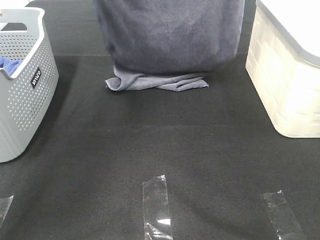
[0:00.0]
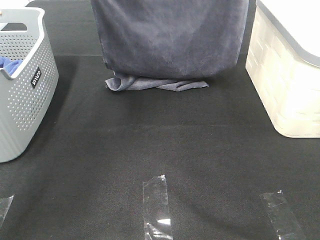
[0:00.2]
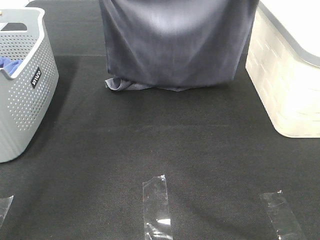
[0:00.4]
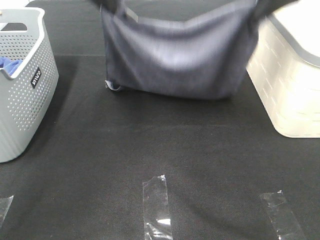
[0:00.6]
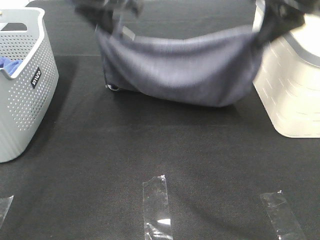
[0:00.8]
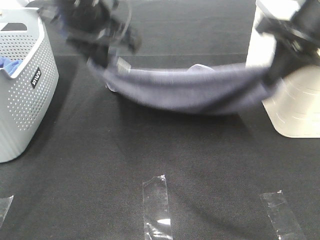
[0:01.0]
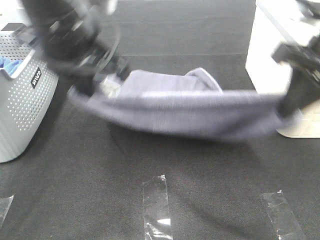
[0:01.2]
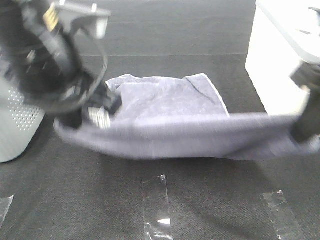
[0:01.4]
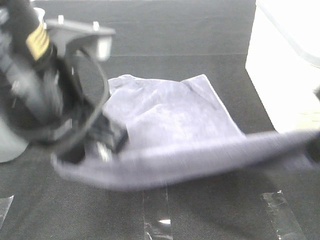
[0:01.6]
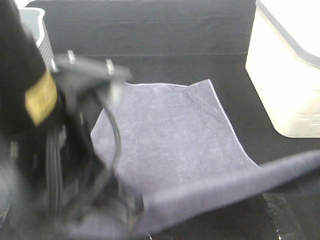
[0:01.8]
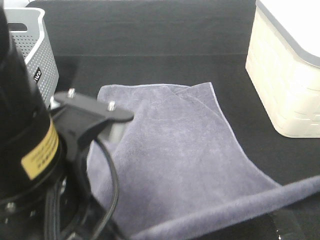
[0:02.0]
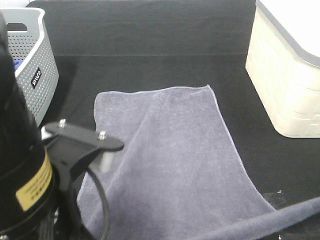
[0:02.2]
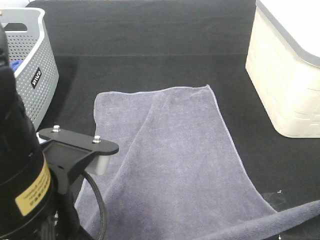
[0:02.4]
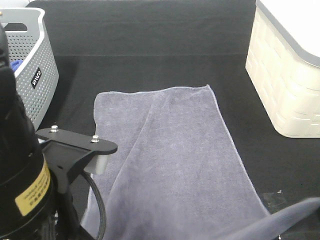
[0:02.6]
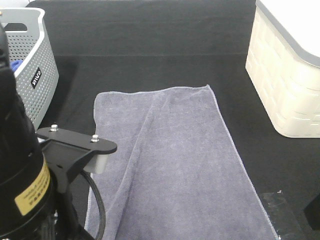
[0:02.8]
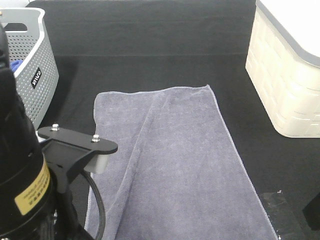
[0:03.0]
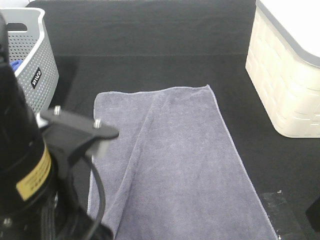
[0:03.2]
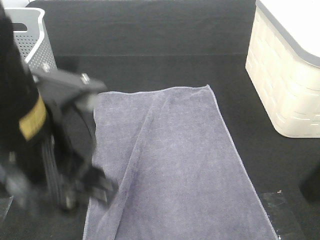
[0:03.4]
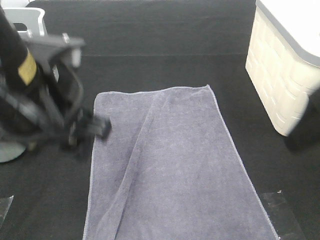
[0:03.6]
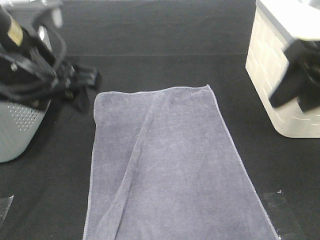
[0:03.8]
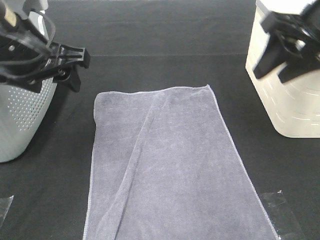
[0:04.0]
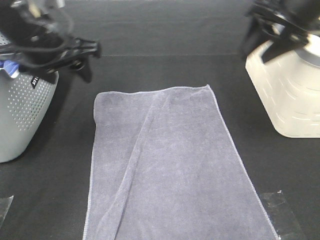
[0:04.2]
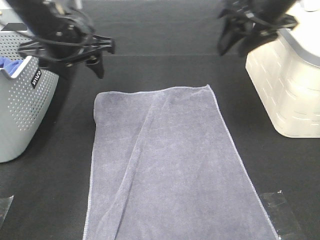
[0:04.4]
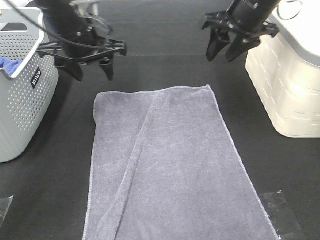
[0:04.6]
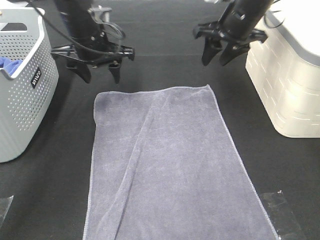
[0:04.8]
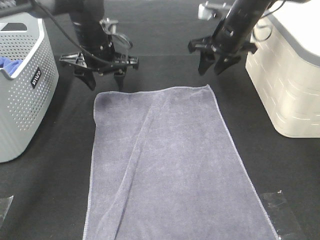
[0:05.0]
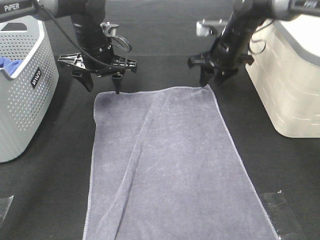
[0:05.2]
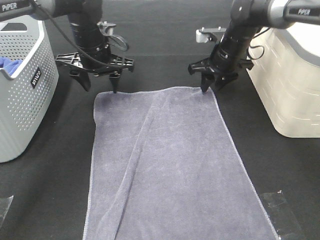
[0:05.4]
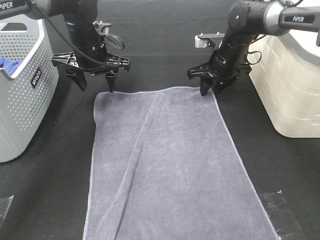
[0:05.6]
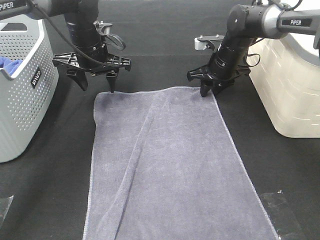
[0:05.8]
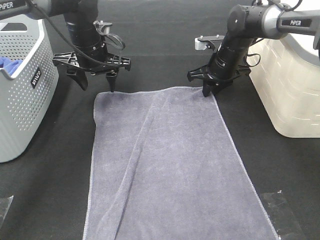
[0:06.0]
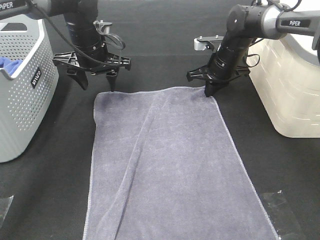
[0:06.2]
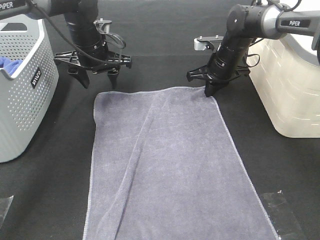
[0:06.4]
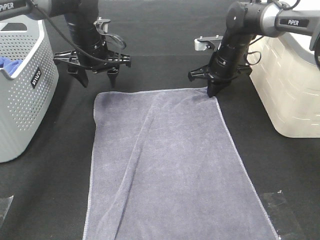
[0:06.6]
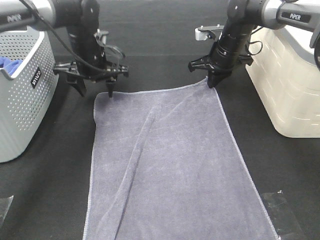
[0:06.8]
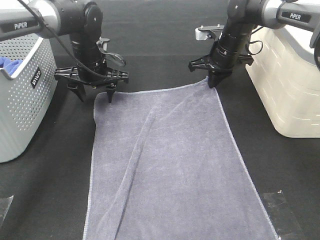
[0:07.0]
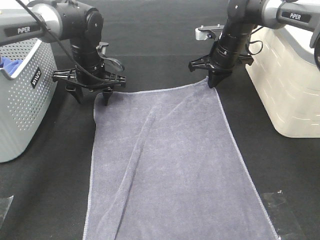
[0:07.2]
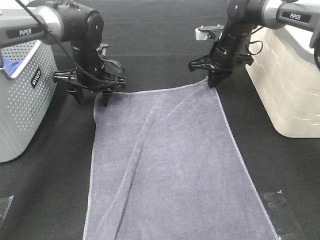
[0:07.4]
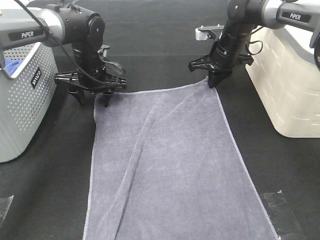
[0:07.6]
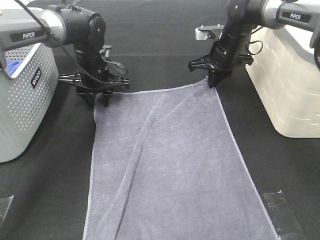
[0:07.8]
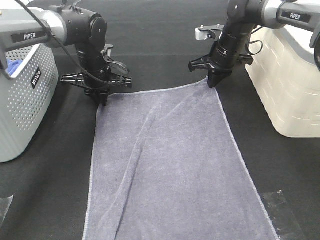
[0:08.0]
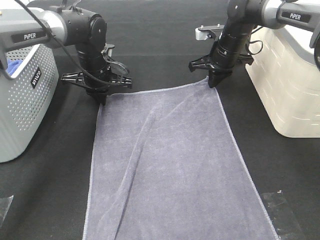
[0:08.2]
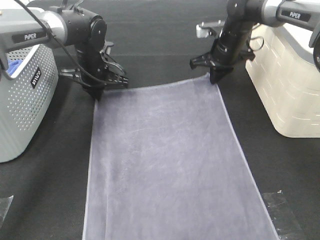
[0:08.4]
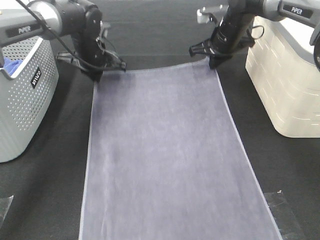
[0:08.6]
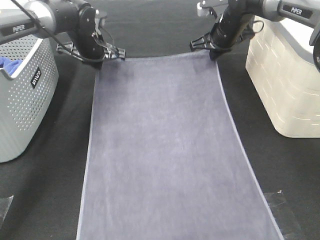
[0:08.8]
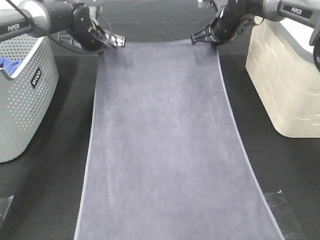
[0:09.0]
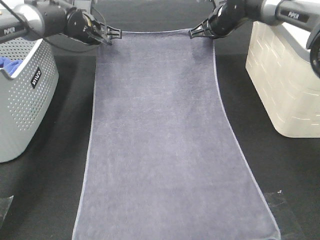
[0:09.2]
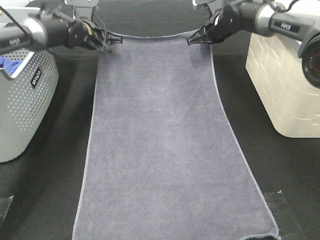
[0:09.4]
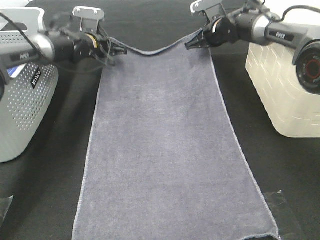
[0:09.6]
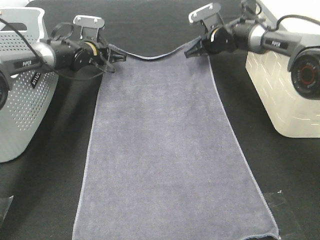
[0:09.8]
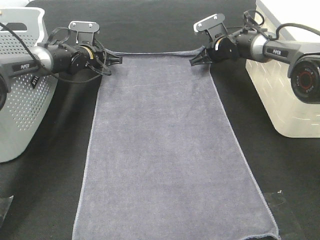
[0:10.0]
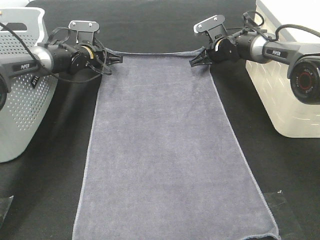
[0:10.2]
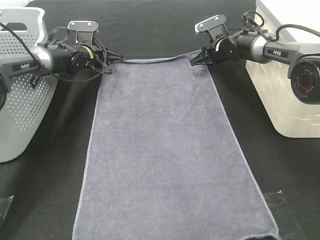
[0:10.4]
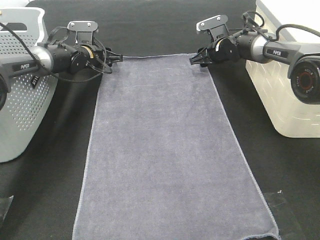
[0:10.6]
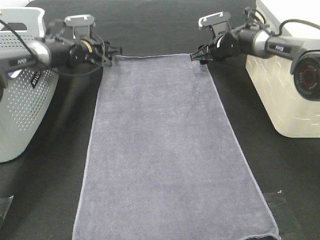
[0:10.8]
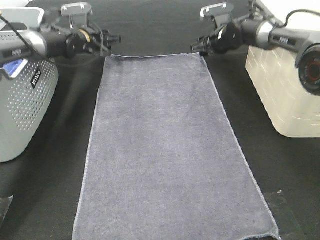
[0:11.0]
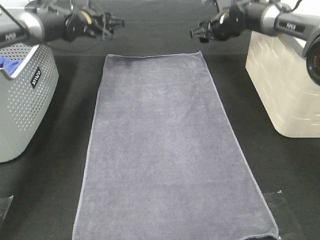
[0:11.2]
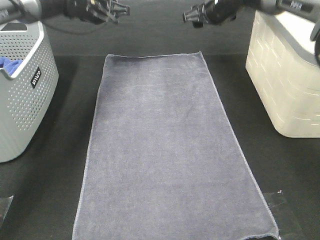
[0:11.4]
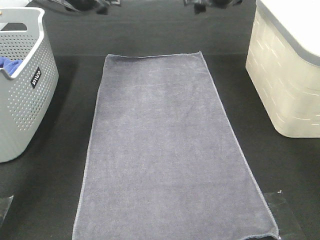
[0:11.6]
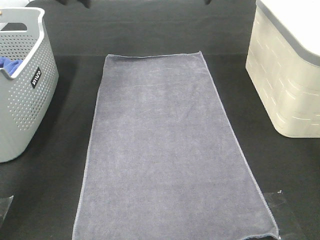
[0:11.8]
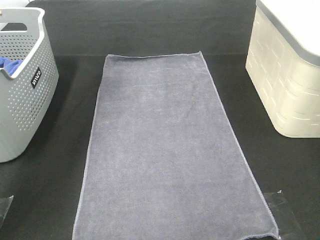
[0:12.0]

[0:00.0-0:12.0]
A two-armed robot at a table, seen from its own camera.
Task of the whole recording: Remove the towel and place it.
Step, 0:00.0 to 0:04.6: Left hand:adjust the gray towel.
Step, 0:00.0 to 0:04.6: Right hand:adjust the gray towel.
0:00.0 to 0:01.6: The right gripper travels backward and downward by some 30 cm. Meanwhile the left gripper shifts about 30 cm backward.
0:01.6 to 0:03.0: The grippers both shift backward by approximately 5 cm. The right gripper opens its fingers. Meanwhile the left gripper opens its fingers.
0:03.0 to 0:04.4: Both grippers travel together forward, roughly 30 cm.
0:04.4 to 0:06.0: The left gripper is displaced forward and downward by approximately 10 cm; the right gripper travels downward and forward by about 20 cm, and closes up.
0:06.0 to 0:07.6: The left gripper moves downward, roughly 5 cm. Meanwhile the right gripper closes its fingers.
0:07.6 to 0:09.0: The right gripper shifts by some 5 cm. The left gripper shifts about 10 cm forward and upward, and closes its fingers.
0:09.0 to 0:10.4: Both grippers travel together downward, roughly 10 cm. The right gripper opens its fingers, while the left gripper opens.
0:10.4 to 0:12.0: Both grippers move upward and backward, about 30 cm. The right gripper opens up.

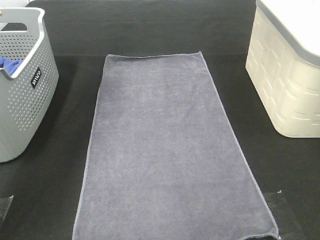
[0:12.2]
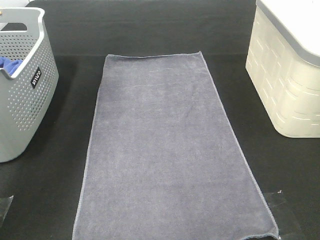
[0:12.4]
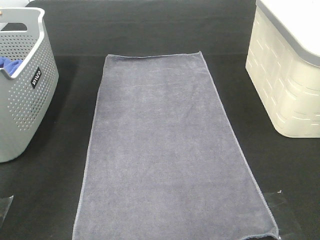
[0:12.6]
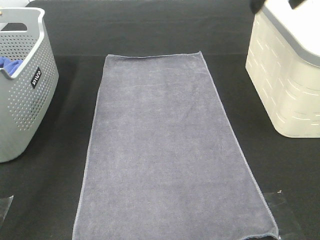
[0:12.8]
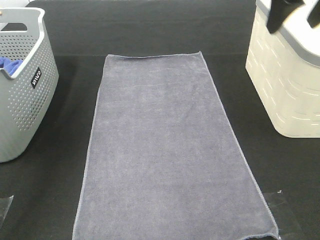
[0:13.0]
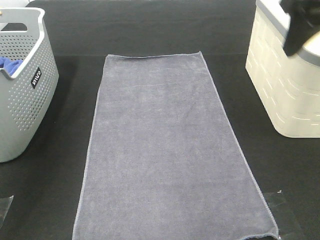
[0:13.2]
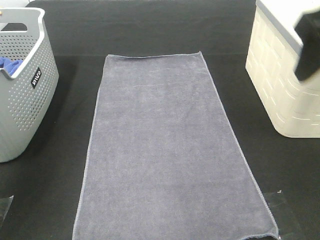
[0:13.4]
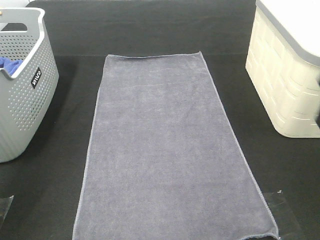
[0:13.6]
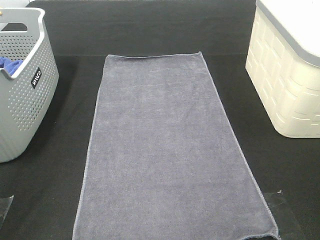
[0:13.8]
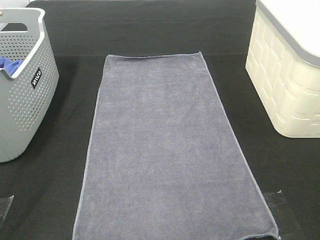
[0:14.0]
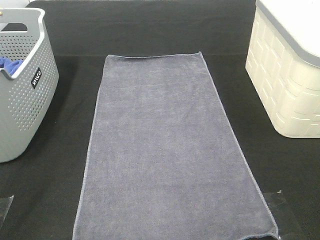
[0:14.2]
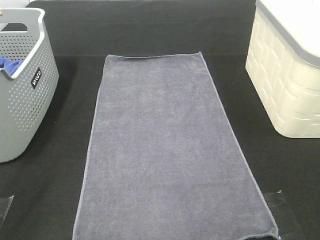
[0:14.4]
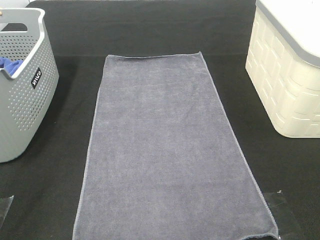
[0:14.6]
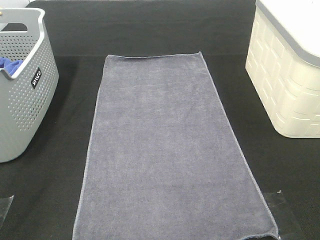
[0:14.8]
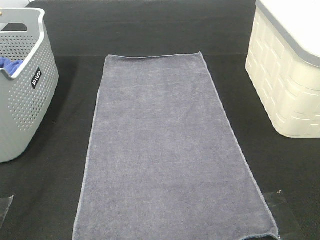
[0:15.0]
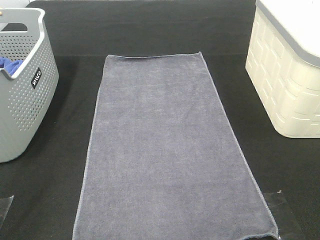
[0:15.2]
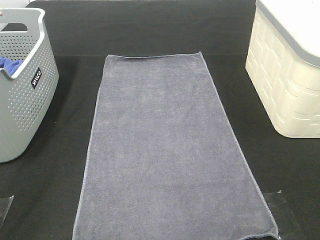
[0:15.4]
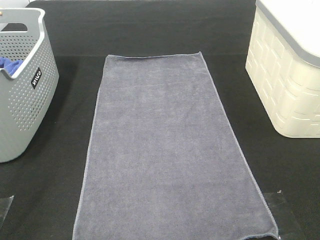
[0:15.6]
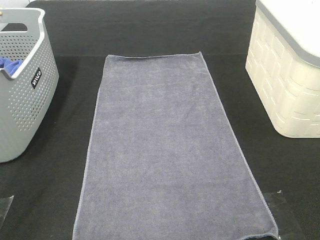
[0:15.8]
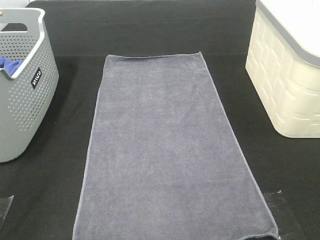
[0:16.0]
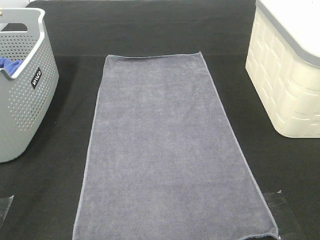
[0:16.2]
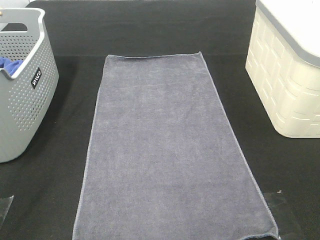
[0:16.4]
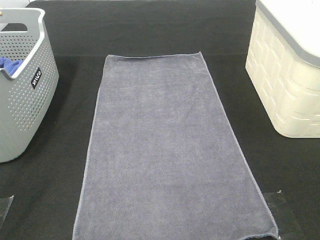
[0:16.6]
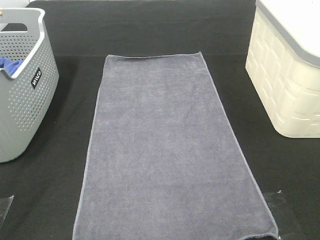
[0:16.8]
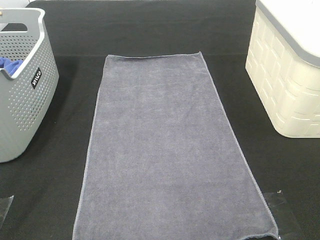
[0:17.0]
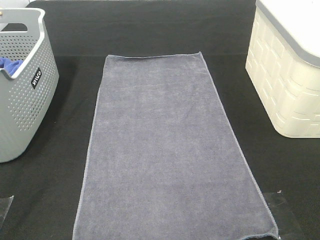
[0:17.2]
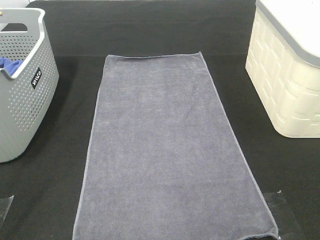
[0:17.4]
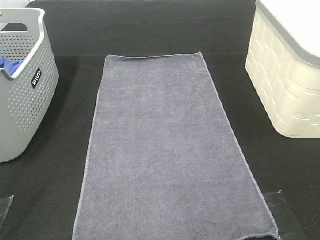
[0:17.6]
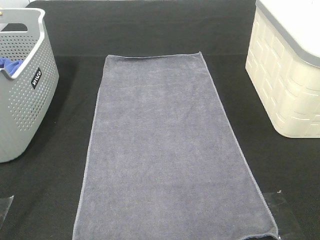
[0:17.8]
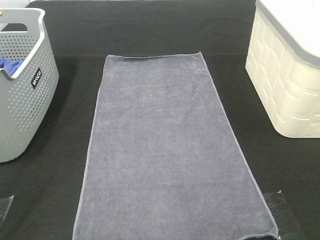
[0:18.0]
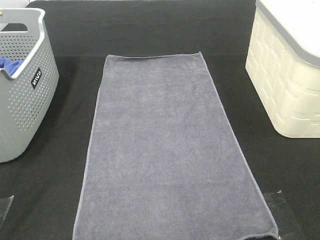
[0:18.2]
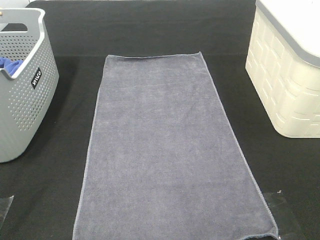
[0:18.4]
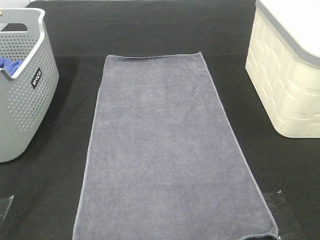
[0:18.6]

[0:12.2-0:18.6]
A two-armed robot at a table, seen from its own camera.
Task of the whole recording: Remove the towel and place it.
0:12.2 to 0:13.8: Both grippers move backward, some 35 cm.

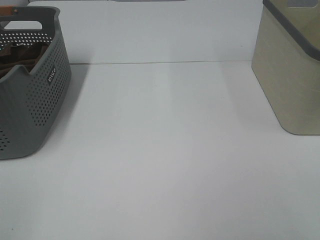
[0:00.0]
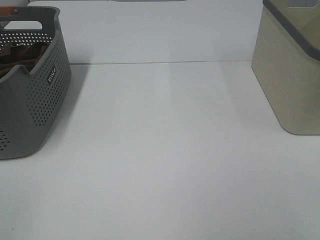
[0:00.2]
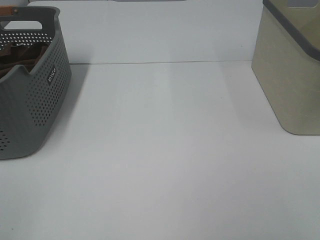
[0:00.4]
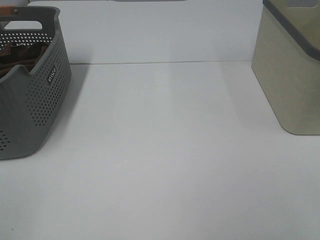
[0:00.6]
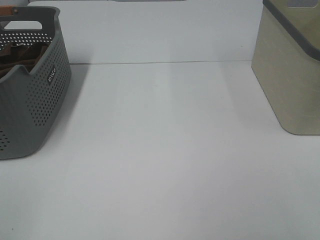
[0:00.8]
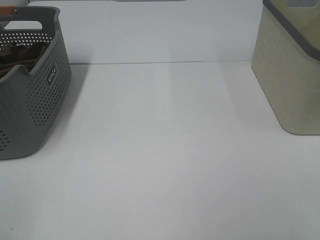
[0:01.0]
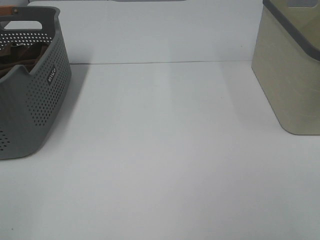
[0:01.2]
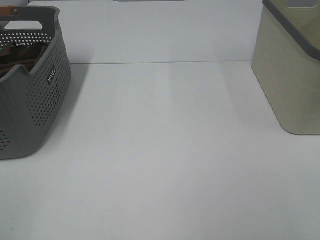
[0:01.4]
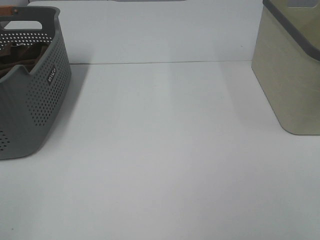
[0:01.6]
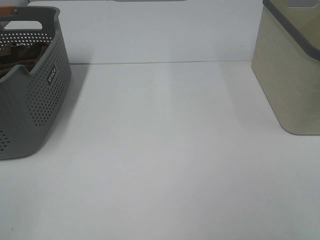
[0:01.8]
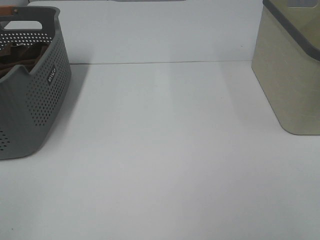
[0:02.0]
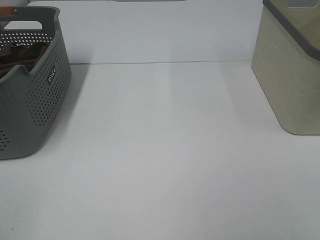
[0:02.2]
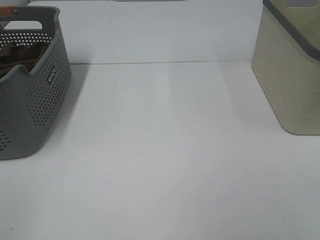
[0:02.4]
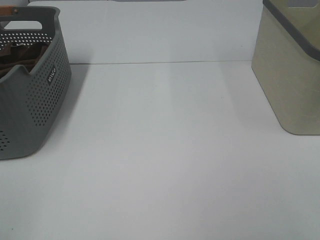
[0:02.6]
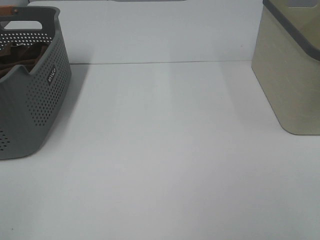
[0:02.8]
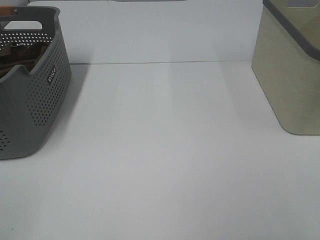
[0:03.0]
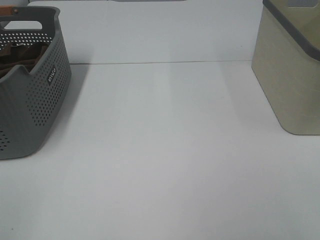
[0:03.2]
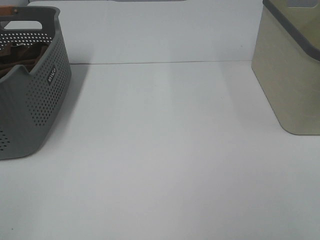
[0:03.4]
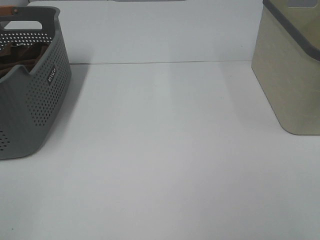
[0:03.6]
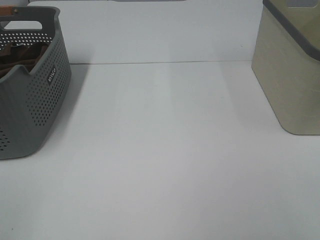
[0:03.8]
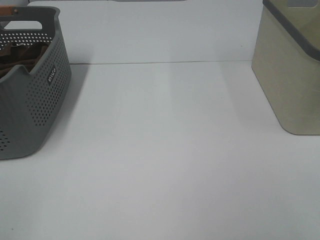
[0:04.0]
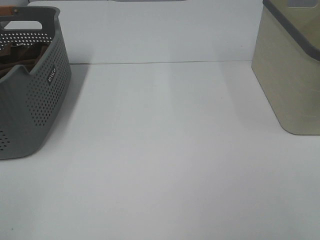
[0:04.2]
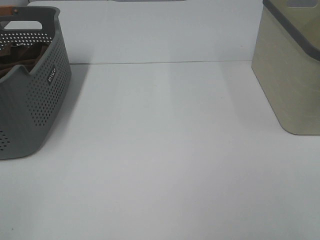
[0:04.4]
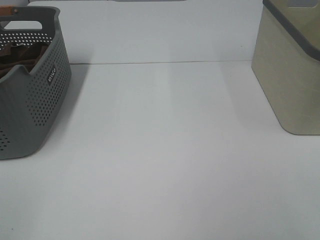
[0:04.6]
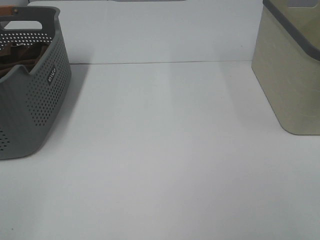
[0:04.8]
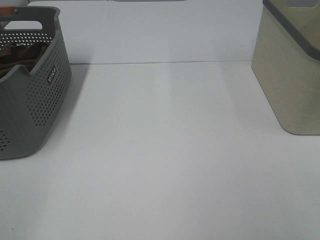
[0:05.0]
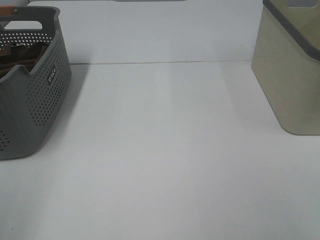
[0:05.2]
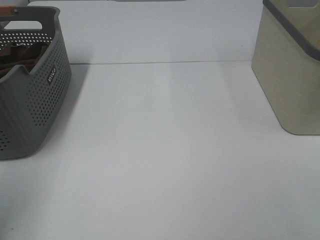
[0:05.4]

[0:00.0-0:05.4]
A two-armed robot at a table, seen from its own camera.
Task of the whole recording: Remove the towel and place it.
0:00.0 to 0:04.0: Both grippers stay put.
0:04.0 to 0:05.4: The left gripper moves forward, roughly 10 cm.
